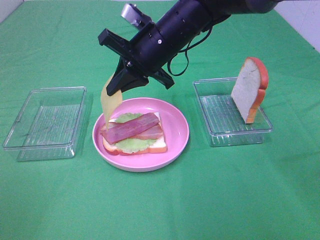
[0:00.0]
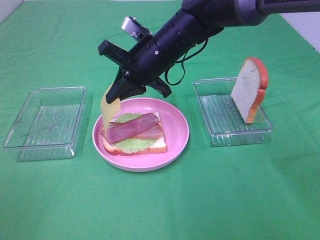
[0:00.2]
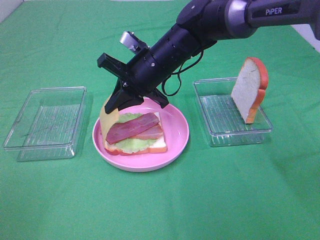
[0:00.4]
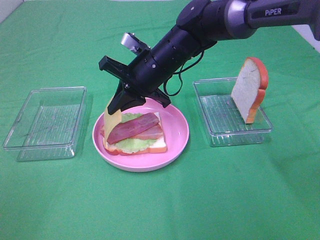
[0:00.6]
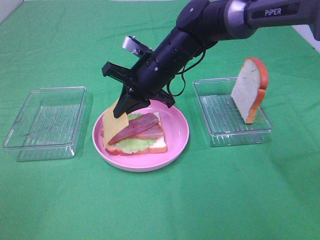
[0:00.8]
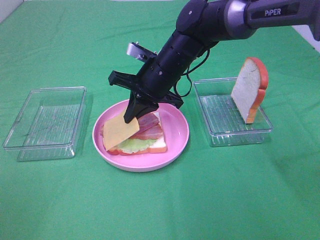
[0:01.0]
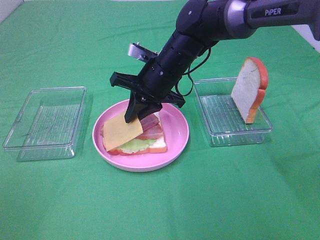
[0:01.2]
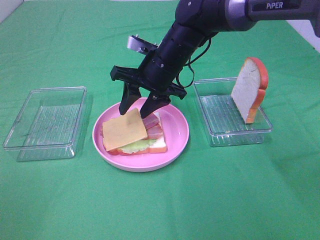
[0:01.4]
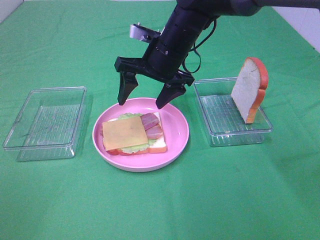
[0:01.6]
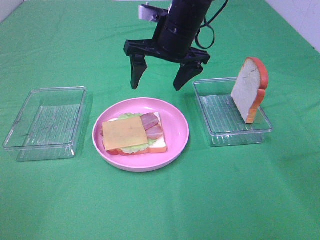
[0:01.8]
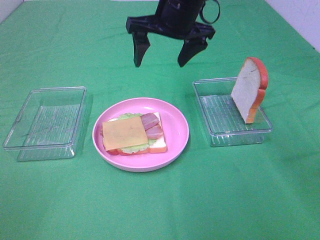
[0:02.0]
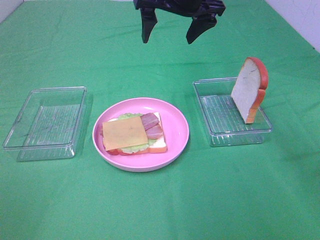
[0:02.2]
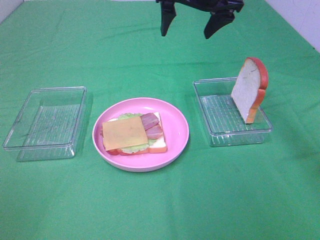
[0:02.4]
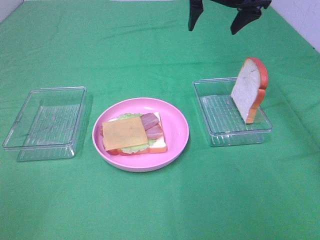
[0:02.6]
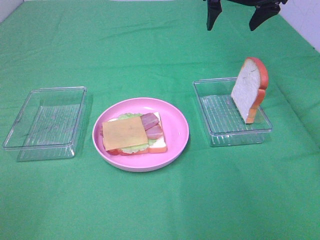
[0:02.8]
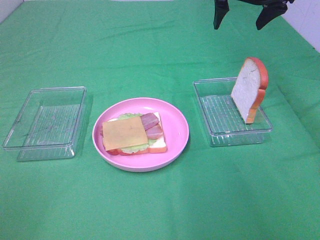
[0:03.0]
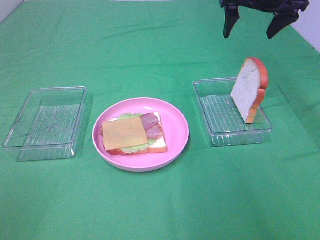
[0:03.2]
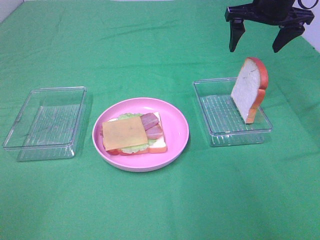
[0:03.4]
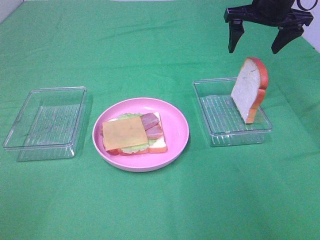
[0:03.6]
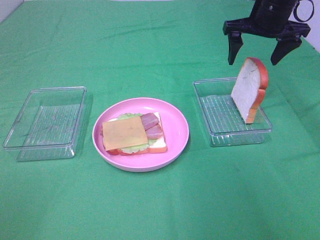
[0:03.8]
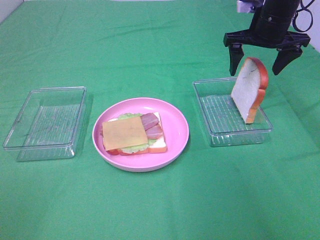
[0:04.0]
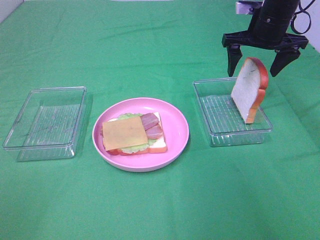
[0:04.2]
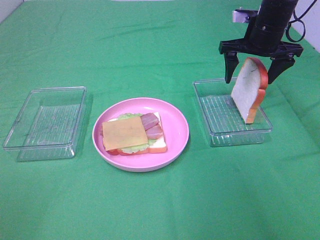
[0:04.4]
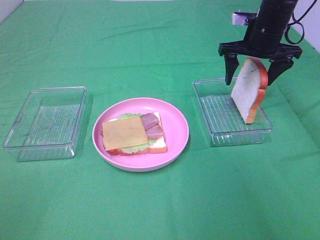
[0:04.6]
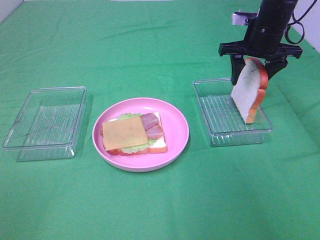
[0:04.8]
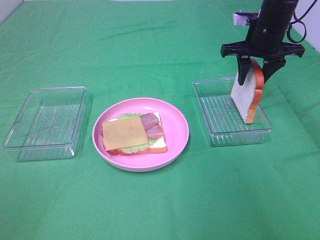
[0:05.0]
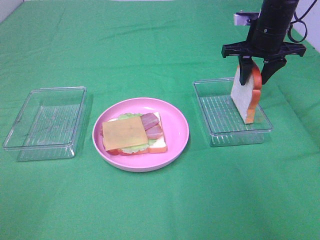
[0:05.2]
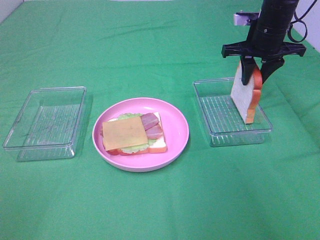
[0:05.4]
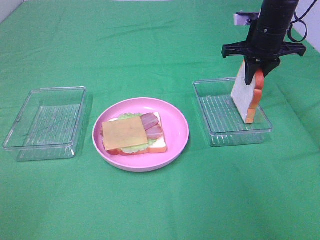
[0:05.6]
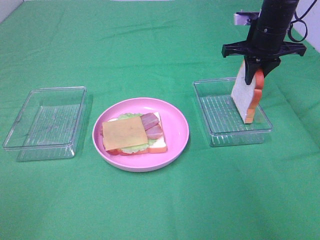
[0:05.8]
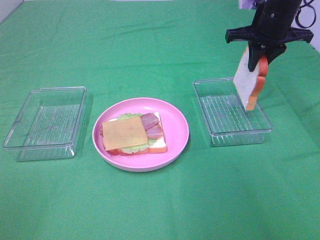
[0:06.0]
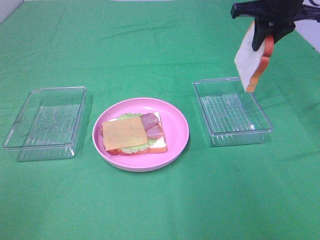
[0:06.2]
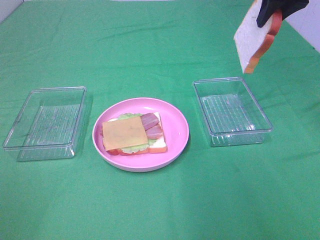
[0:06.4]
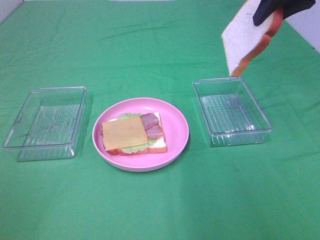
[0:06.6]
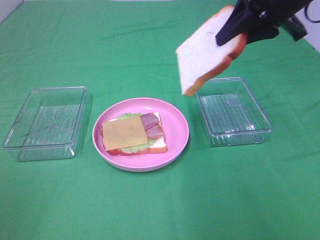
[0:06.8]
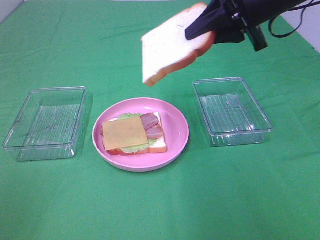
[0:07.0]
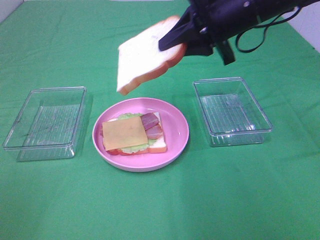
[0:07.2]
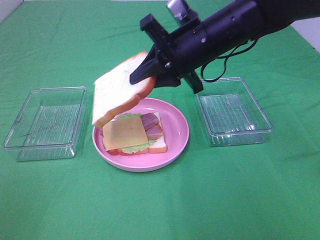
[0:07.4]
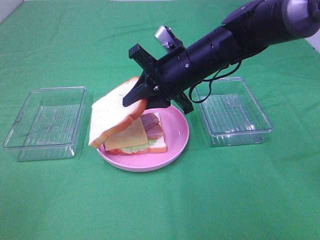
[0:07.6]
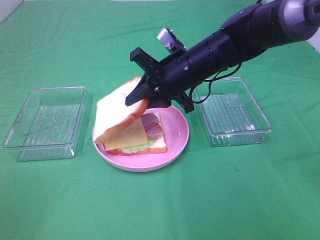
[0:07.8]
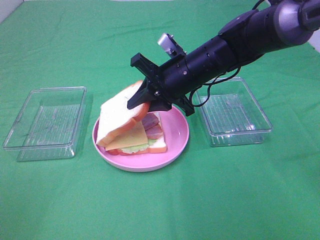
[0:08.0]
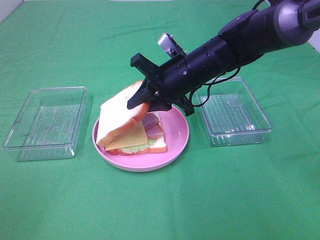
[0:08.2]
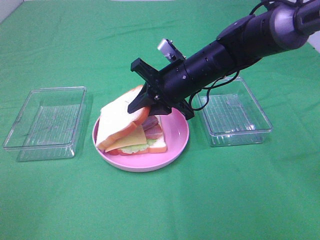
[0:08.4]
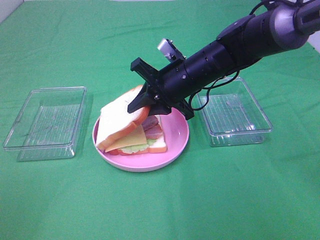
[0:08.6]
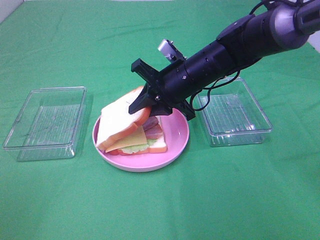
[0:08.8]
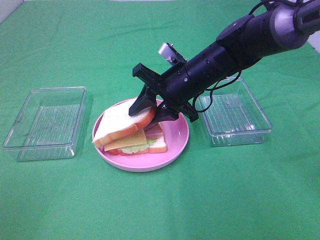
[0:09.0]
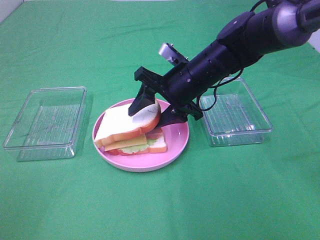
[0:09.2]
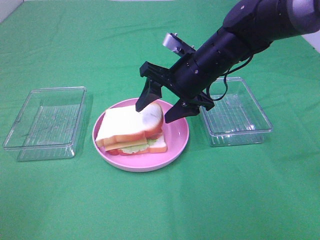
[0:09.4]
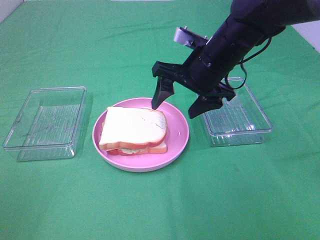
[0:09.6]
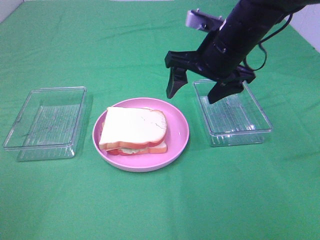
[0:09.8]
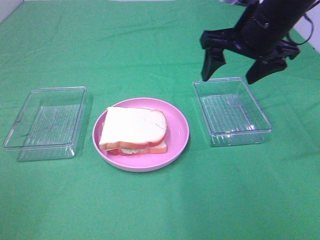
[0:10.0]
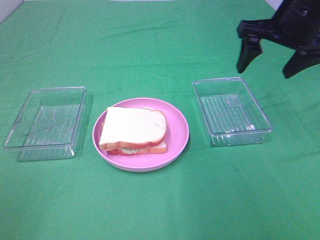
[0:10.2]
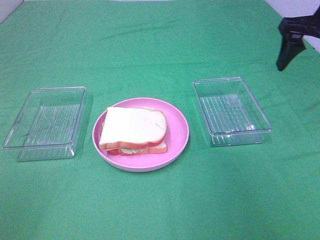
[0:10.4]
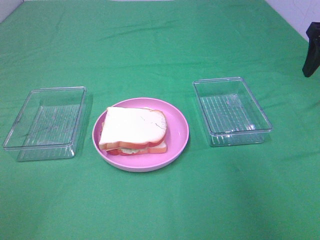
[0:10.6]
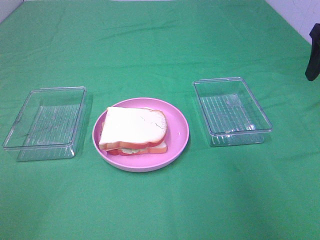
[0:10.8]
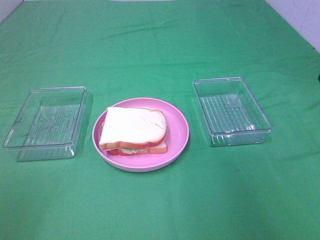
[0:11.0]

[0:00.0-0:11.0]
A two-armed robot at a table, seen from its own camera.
Task of the whole recording: Make sandwiches.
Step, 0:00.0 to 0:01.4: Right hand:place the cheese slice on top of the bacon.
Step, 0:01.6 to 0:05.8: Right hand:grab the bread slice.
Step, 0:06.0 to 0:09.4: Right hand:place the bread slice on the cheese slice.
0:00.0 to 0:01.6: The right gripper opens its fingers.
0:01.6 to 0:03.2: The right gripper goes approximately 20 cm to the right, upward and forward.
0:03.2 to 0:04.8: The right gripper goes roughly 10 cm downward.
0:04.8 to 0:06.2: The right gripper is displaced upward by some 10 cm, and closes.
0:06.2 to 0:07.8: The right gripper is displaced to the left, downward and backward by approximately 20 cm.
0:07.8 to 0:09.4: The right gripper opens.
0:09.4 to 0:11.0: The right gripper is displaced to the right and upward by some 25 cm.

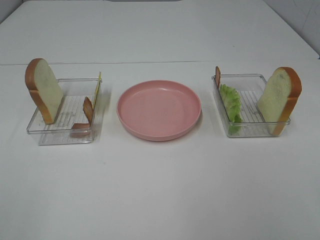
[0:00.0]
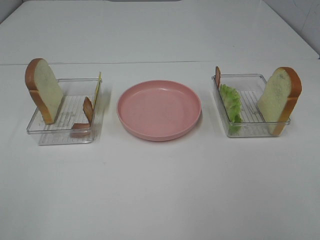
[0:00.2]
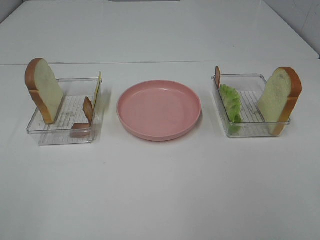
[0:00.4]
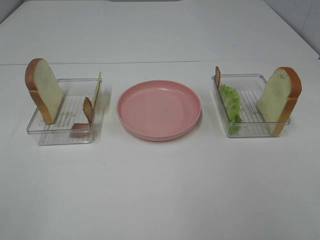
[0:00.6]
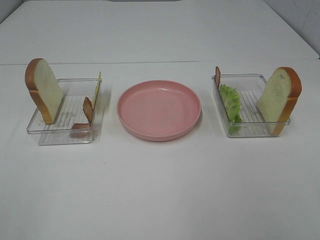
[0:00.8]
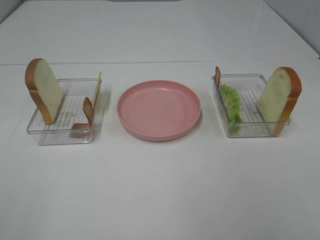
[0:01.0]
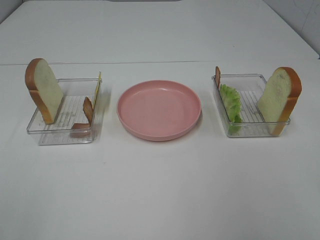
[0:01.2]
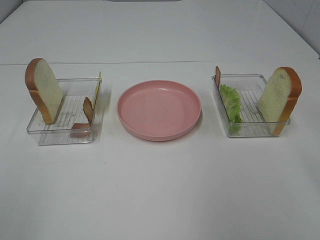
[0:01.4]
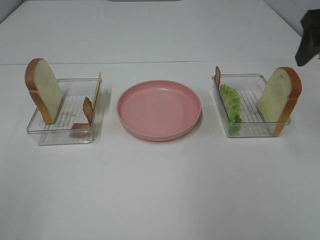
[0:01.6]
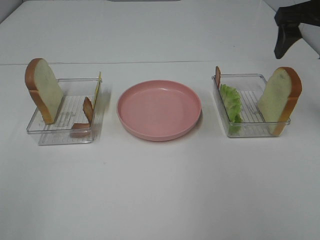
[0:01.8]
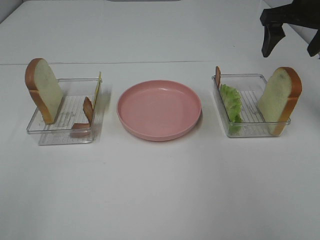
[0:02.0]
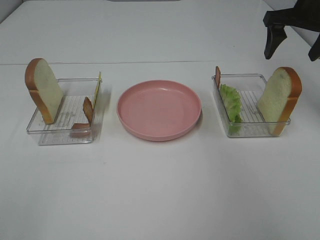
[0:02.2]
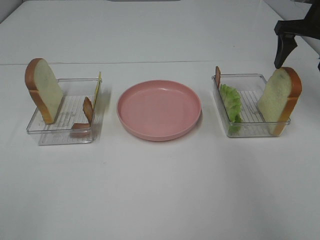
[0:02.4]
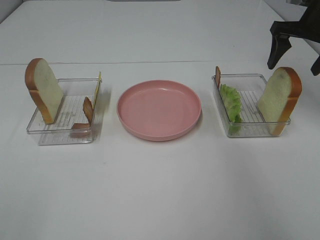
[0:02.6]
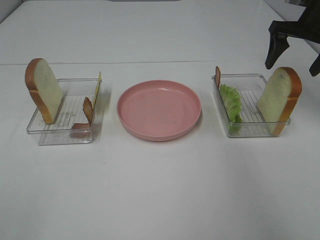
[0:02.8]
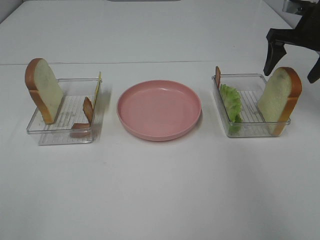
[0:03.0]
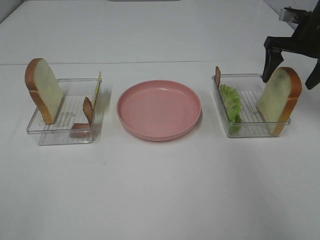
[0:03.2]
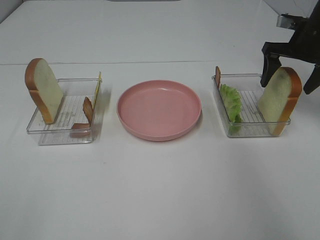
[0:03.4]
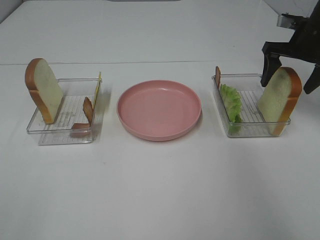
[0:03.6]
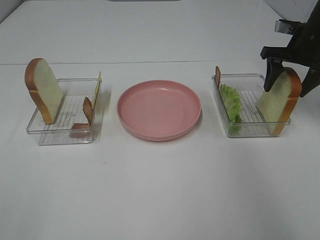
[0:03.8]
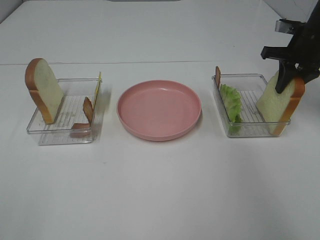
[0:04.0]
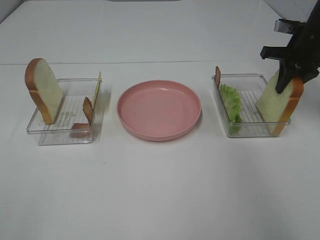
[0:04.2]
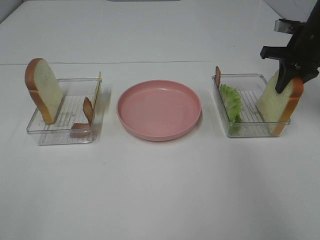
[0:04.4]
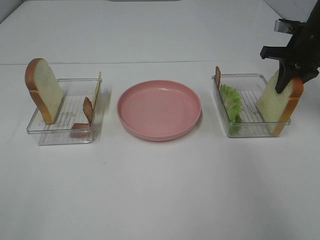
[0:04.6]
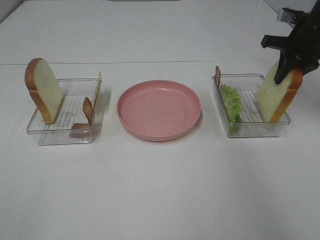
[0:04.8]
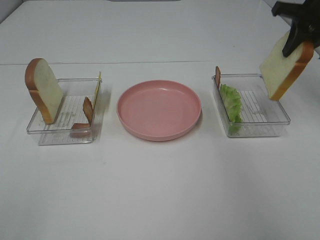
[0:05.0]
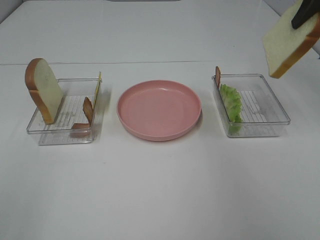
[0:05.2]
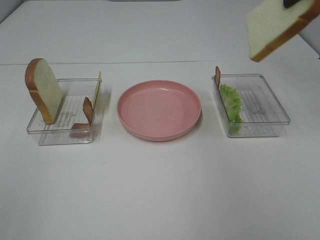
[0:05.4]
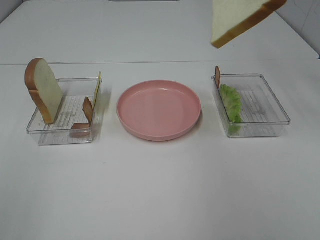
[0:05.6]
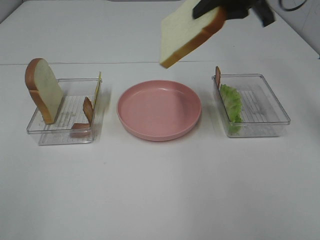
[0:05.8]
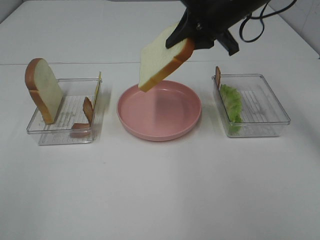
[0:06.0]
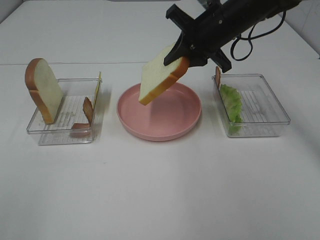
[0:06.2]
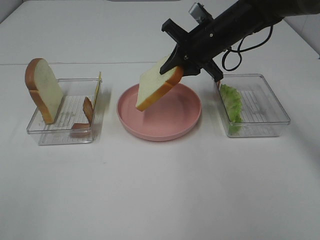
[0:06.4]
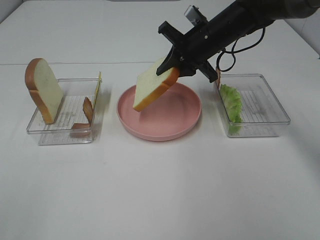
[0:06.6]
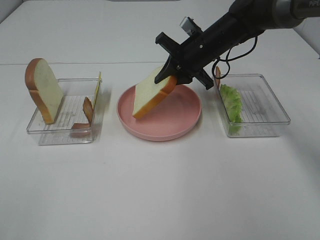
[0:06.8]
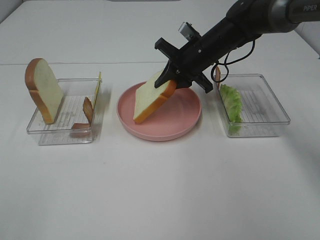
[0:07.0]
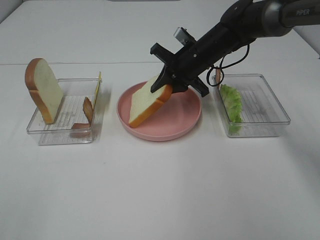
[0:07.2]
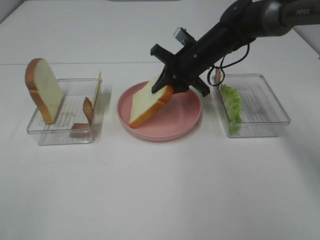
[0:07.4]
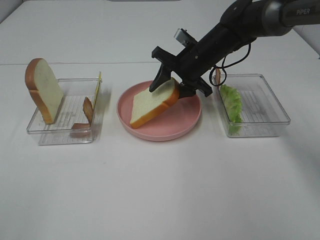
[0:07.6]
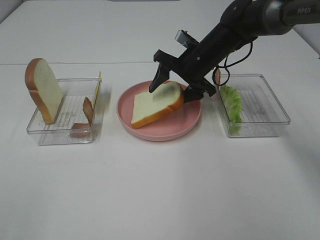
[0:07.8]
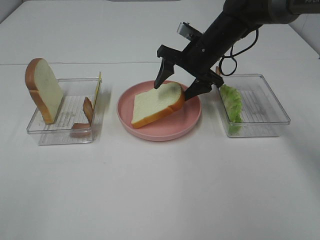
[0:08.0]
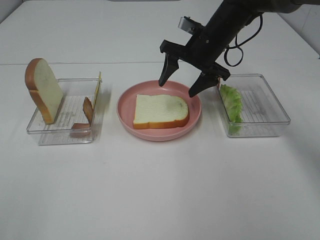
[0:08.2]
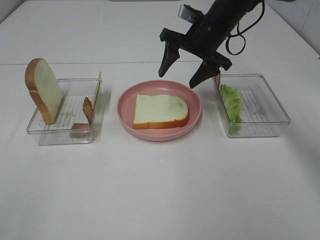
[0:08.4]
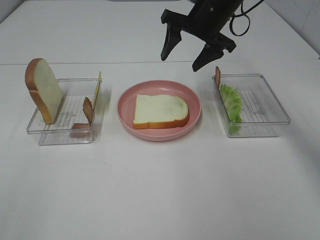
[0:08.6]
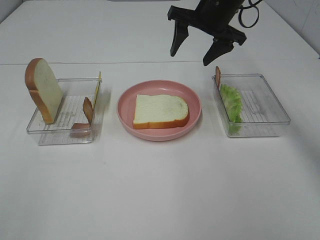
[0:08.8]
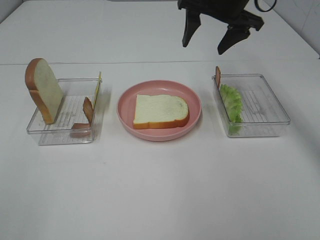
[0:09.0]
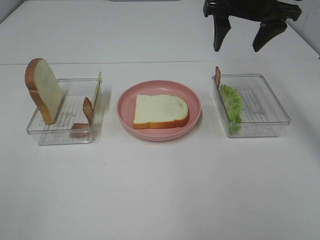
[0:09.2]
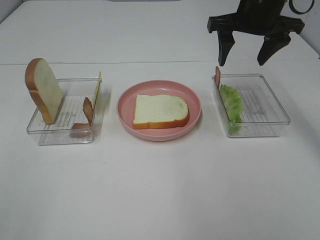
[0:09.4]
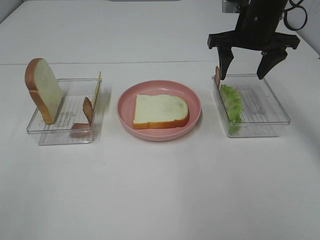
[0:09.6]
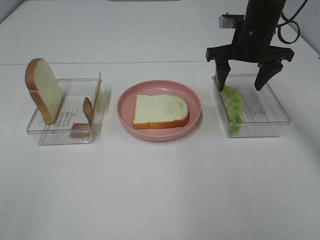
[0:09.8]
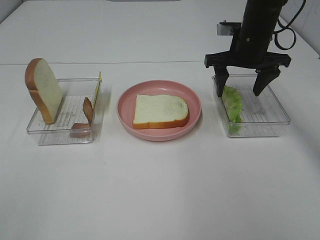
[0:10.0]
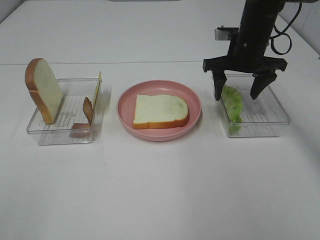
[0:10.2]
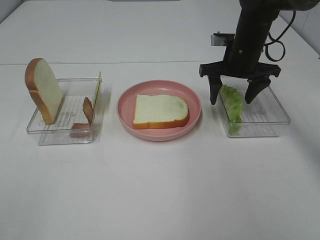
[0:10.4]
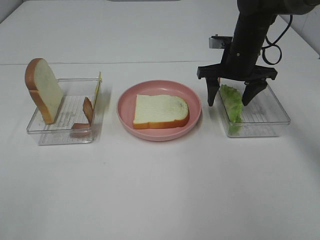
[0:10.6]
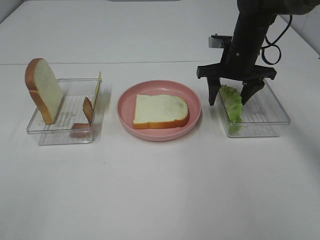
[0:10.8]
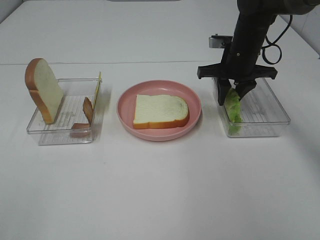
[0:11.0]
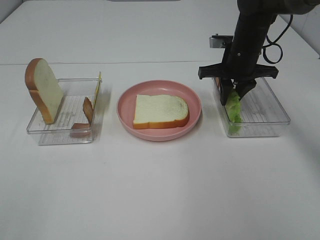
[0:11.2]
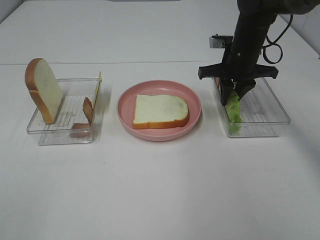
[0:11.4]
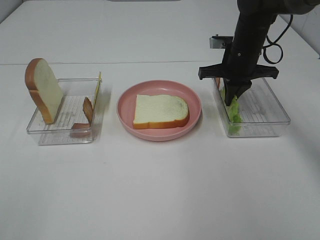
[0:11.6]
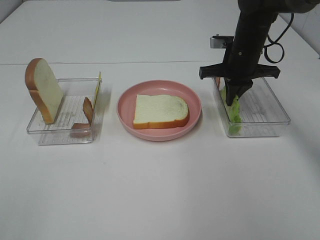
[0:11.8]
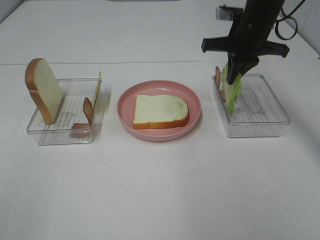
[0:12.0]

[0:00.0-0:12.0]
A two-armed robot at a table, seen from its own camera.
Task of the whole recording: Make sandwiches.
Step, 0:00.0 to 0:04.8: Right hand:grab the bread slice.
Step, 0:05.0 to 0:08.2: Right hand:place the bread slice on the plate.
Step, 0:08.4 to 0:11.8: Right hand:grab the lettuce slice.
0:00.0 to 0:01.6: The right gripper moves forward, about 30 cm.
0:01.6 to 0:03.0: The right gripper is displaced forward and downward by roughly 15 cm.
0:03.0 to 0:04.4: The right gripper closes.
0:04.4 to 0:06.0: The right gripper travels to the left by about 20 cm.
0:06.0 to 0:07.6: The right gripper is displaced downward by about 10 cm, and opens.
0:07.6 to 0:09.0: The right gripper heads upward, covering roughly 15 cm.
0:09.0 to 0:10.4: The right gripper heads downward, covering some 10 cm.
0:10.4 to 0:12.0: The right gripper moves upward, approximately 5 cm, and closes up.
